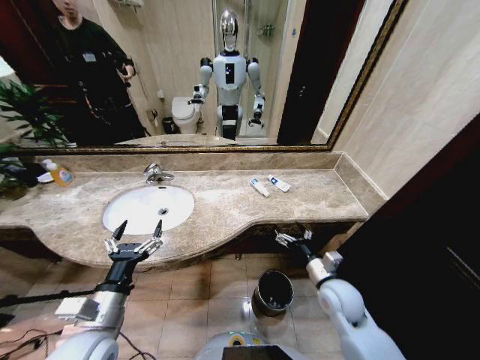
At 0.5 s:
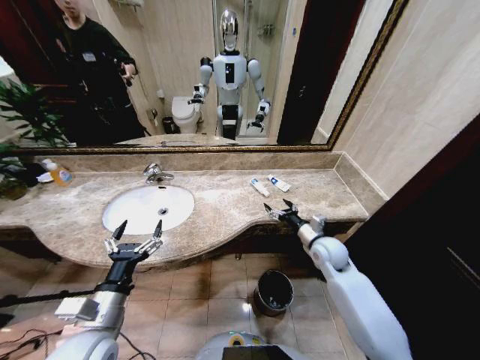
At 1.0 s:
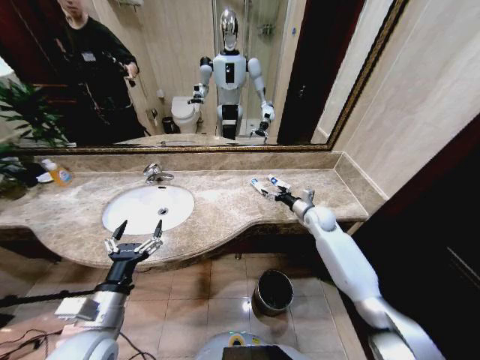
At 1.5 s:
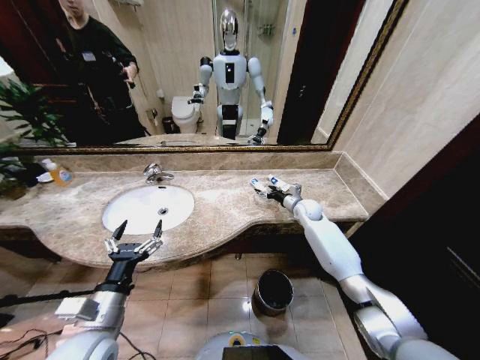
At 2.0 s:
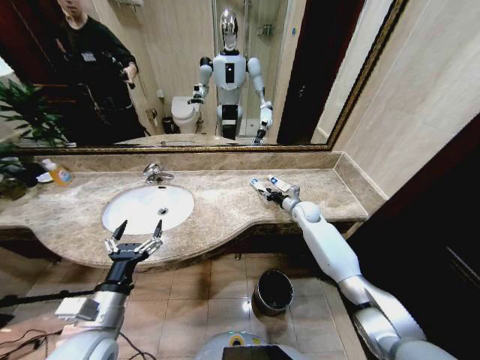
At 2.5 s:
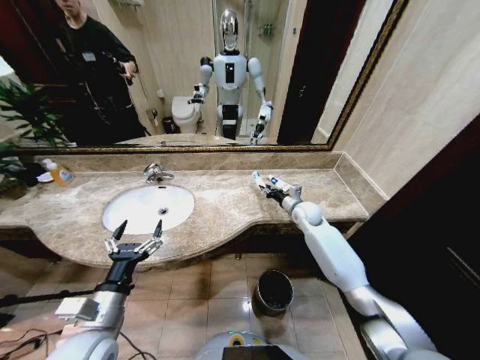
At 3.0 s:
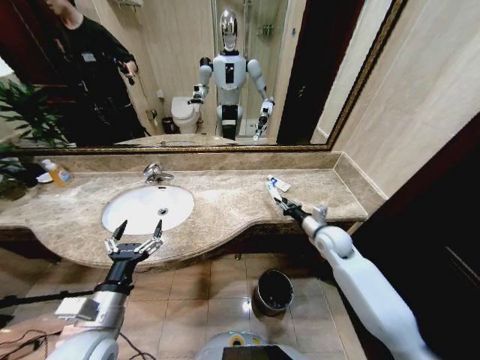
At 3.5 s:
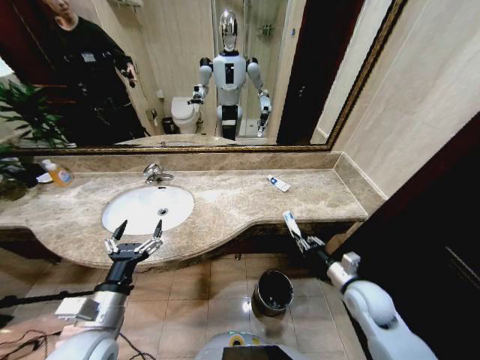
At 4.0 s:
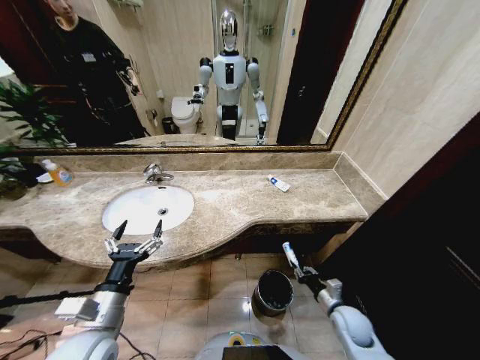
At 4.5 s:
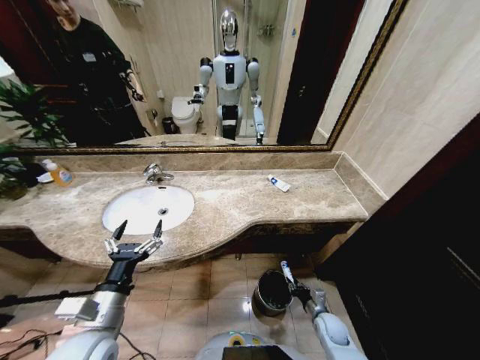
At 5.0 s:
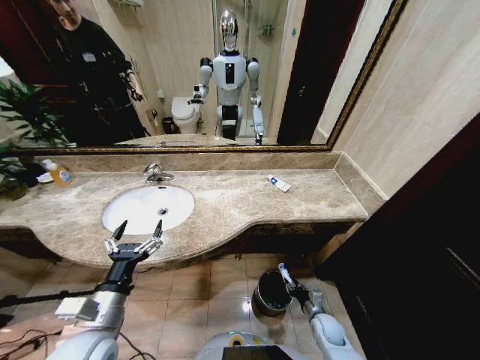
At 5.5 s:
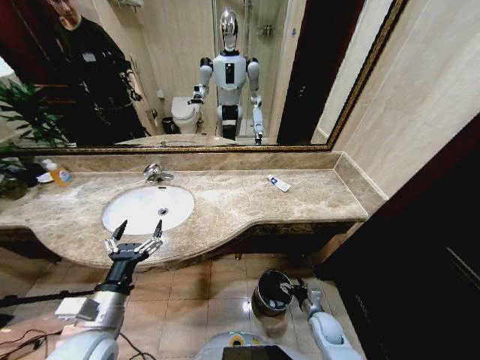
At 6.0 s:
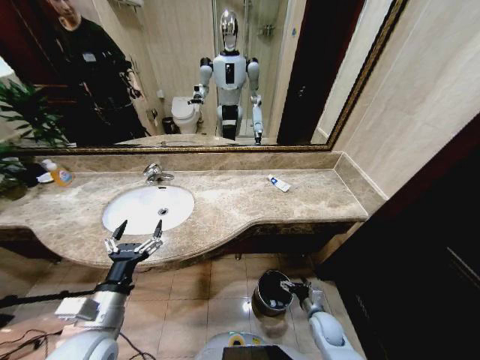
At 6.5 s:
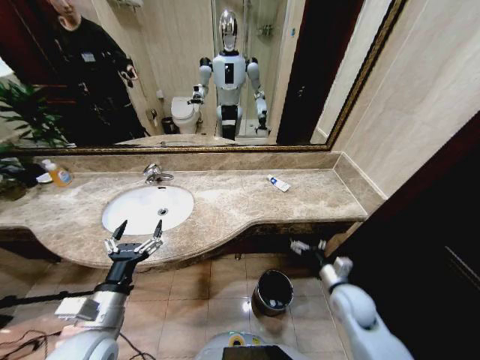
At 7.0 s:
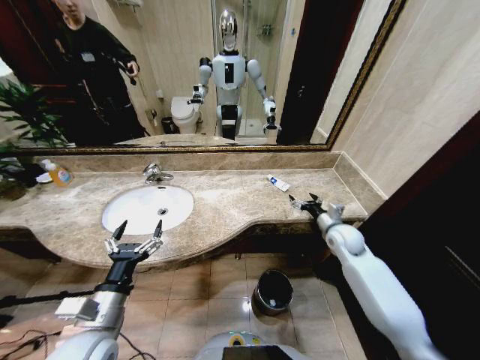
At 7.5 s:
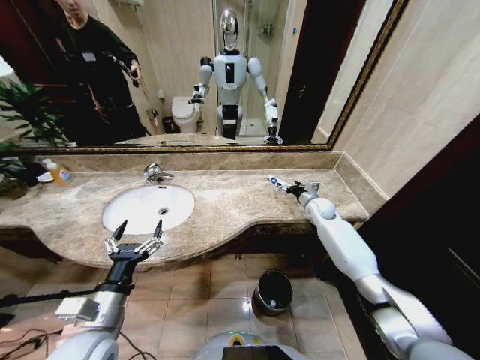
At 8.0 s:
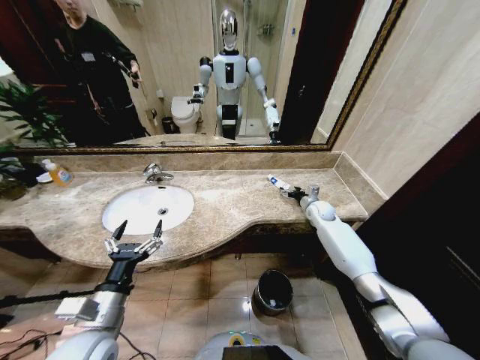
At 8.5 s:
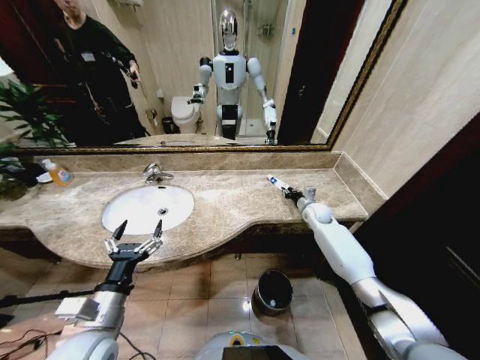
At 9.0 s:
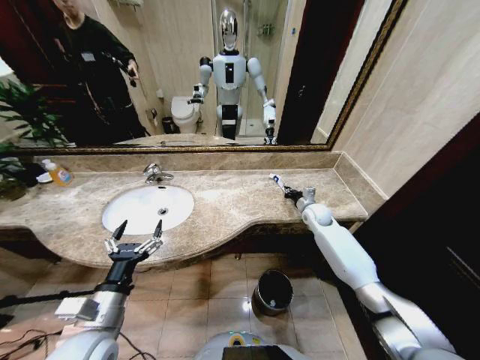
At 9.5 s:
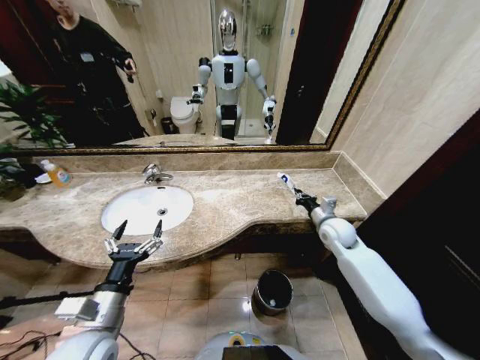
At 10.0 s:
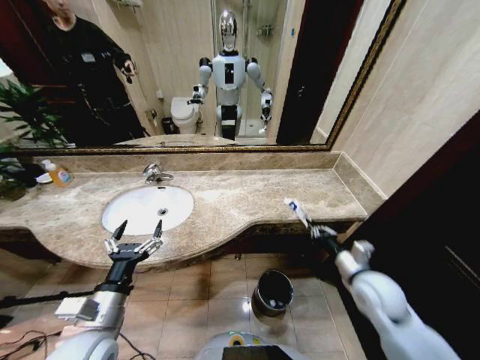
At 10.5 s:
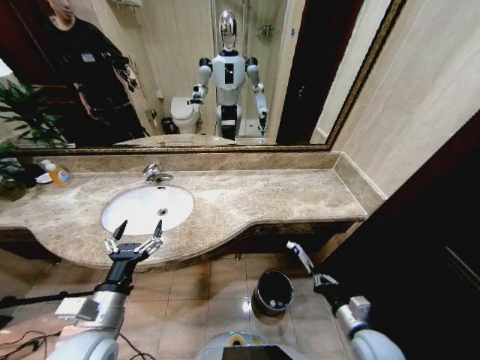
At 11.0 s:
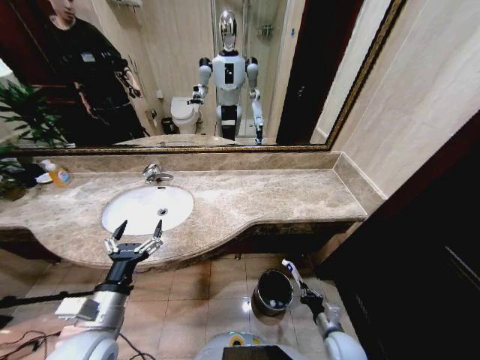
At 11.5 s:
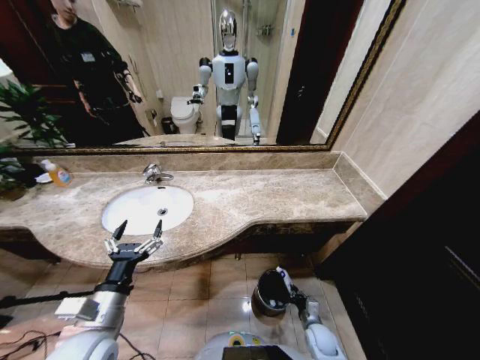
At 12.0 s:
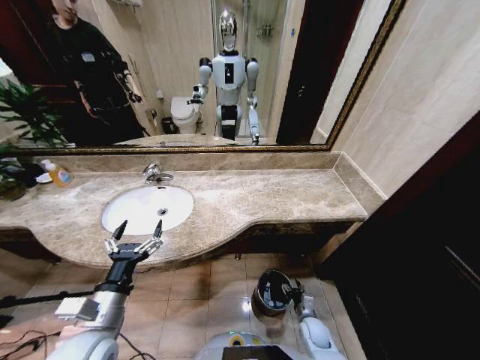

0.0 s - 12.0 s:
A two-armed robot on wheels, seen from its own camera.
Task of the whole recording: Pick up the trash from the sink and place it in the trash bin.
0.0 s - 2.0 s: The right gripper goes some 30 cm forward, and closes.
2.0 s - 4.0 s: The right gripper travels backward and downward by about 35 cm.
4.0 s - 6.0 s: The right gripper shifts roughly 10 cm downward, and opens up.
6.0 s - 8.0 s: The right gripper is displaced forward and upward by some 40 cm.
8.0 s - 10.0 s: The right gripper heads backward, covering about 30 cm, and closes its fingers.
10.0 s - 12.0 s: The right gripper moves downward, about 30 cm, and opens up.

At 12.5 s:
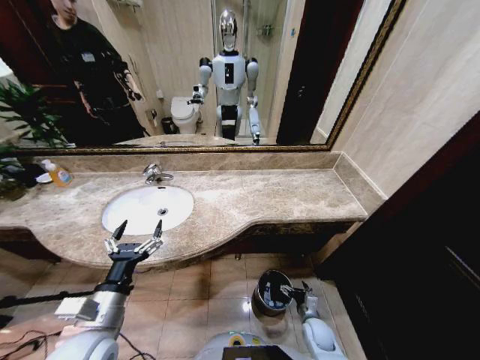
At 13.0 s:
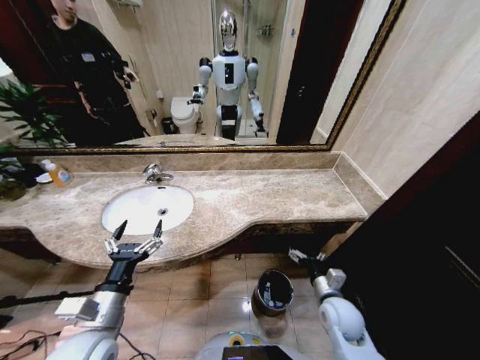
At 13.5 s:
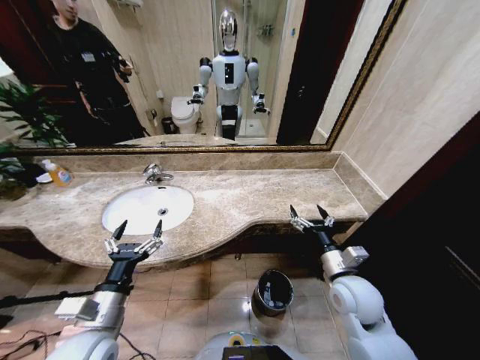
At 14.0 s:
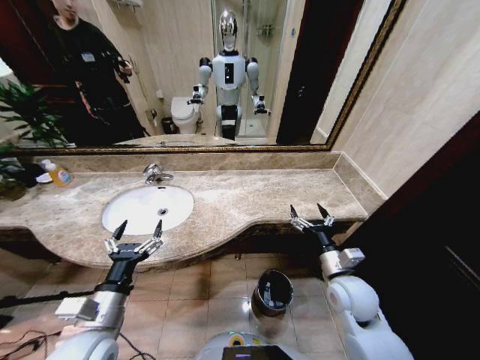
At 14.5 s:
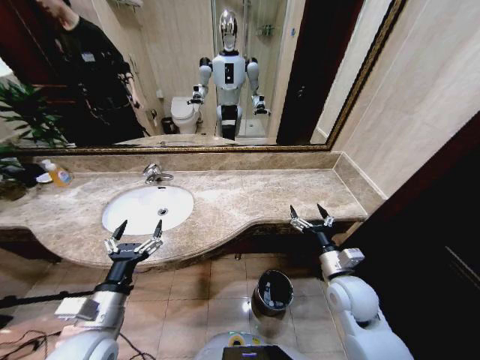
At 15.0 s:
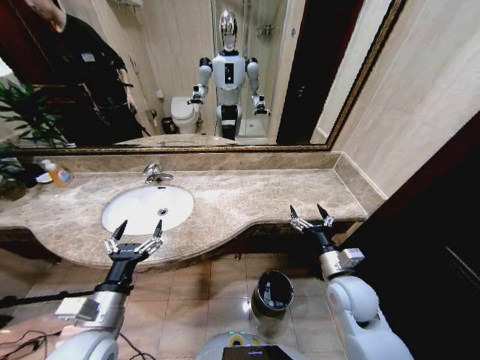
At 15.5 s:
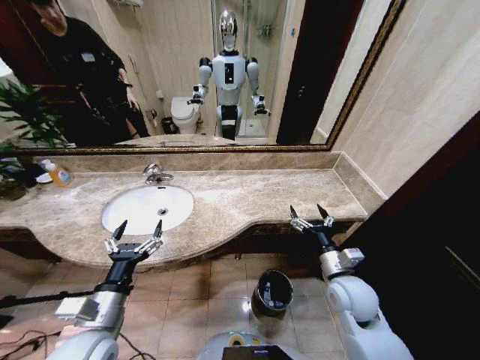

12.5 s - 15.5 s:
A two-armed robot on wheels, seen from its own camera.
Task of the whole recording: Pick up the trash from the sink and place it in the trash bin.
12.5 s - 14.0 s: The right gripper is displaced upward by about 30 cm.
14.0 s - 15.5 s: Both grippers stay about where they are.

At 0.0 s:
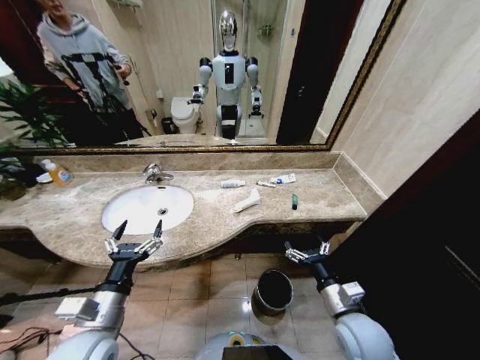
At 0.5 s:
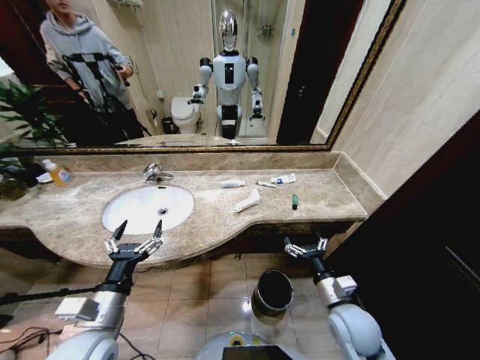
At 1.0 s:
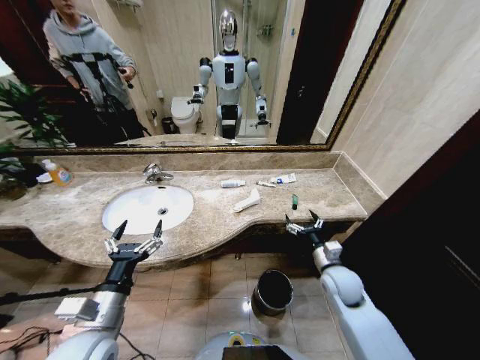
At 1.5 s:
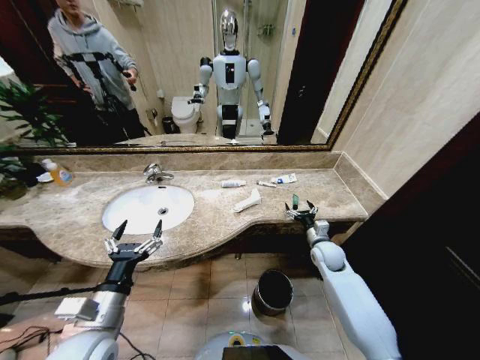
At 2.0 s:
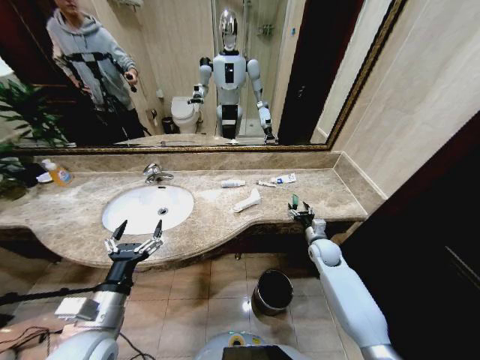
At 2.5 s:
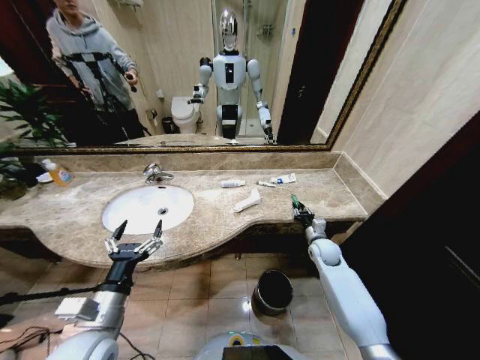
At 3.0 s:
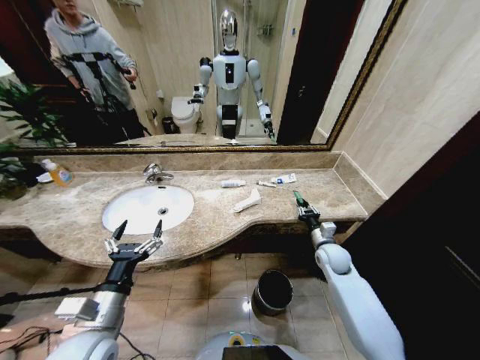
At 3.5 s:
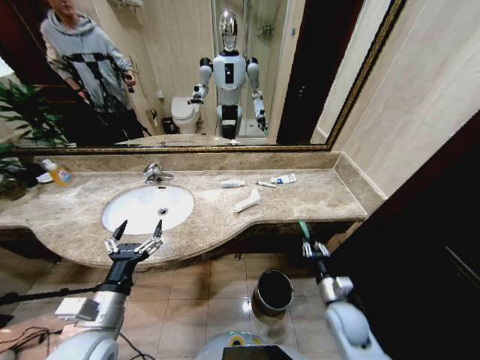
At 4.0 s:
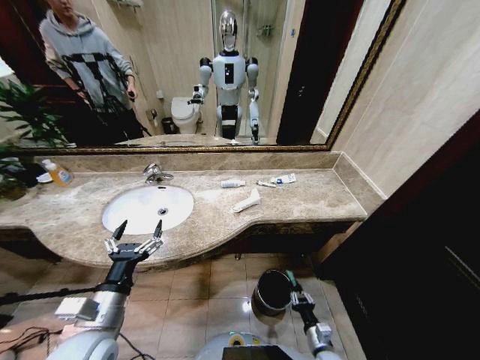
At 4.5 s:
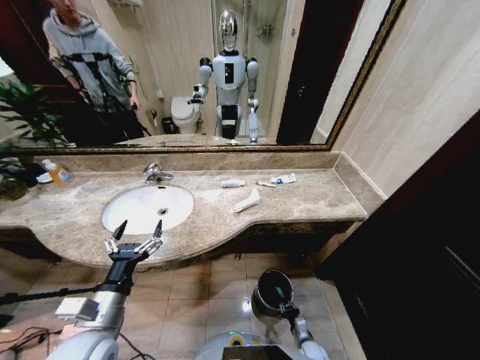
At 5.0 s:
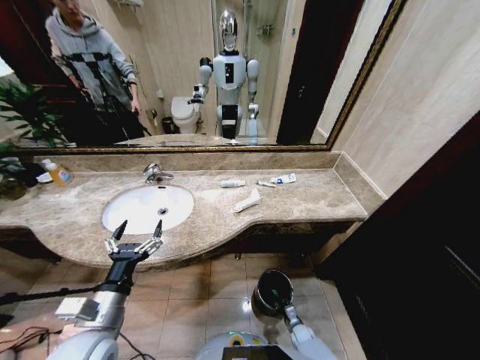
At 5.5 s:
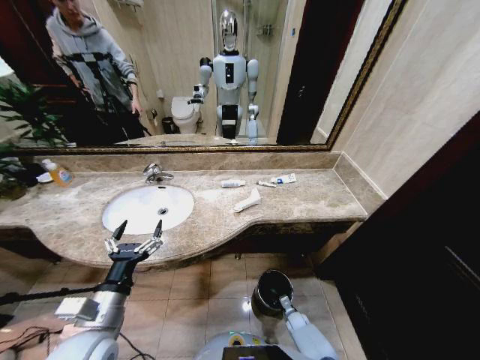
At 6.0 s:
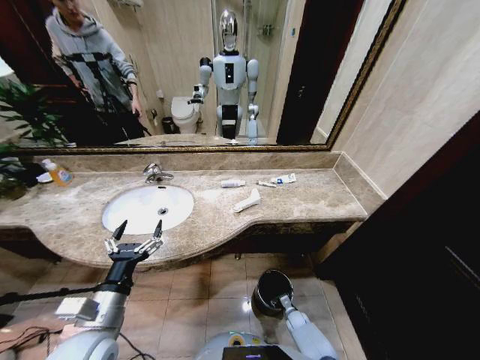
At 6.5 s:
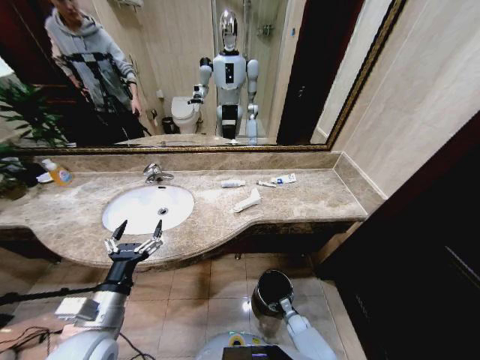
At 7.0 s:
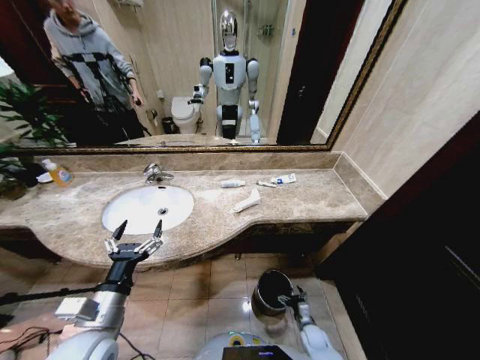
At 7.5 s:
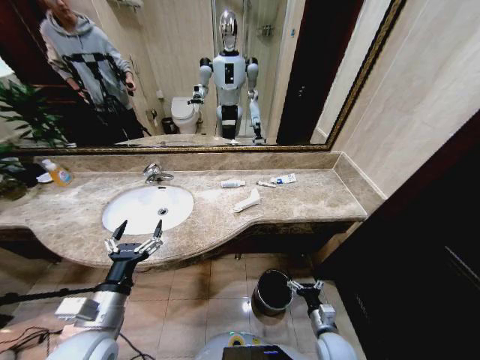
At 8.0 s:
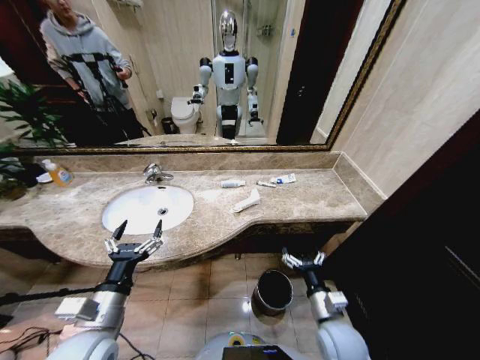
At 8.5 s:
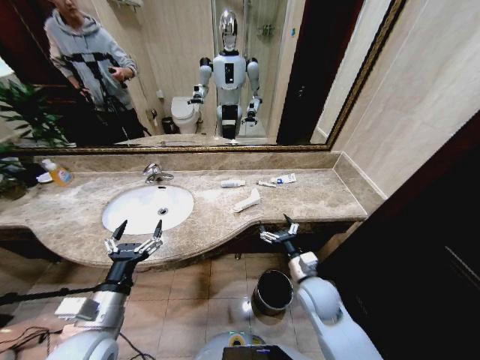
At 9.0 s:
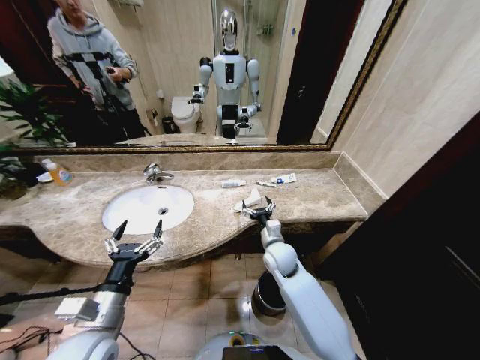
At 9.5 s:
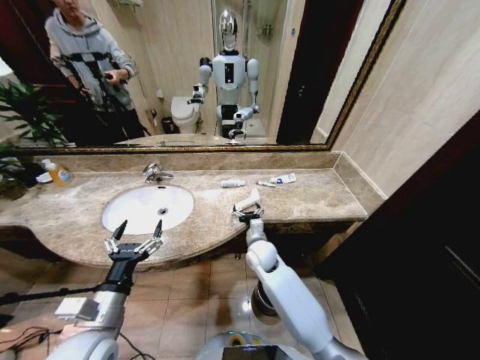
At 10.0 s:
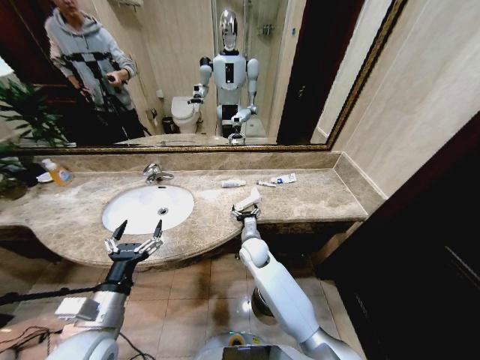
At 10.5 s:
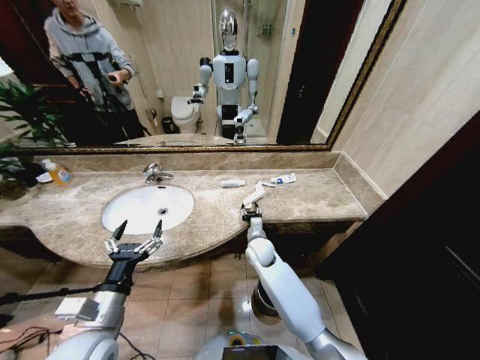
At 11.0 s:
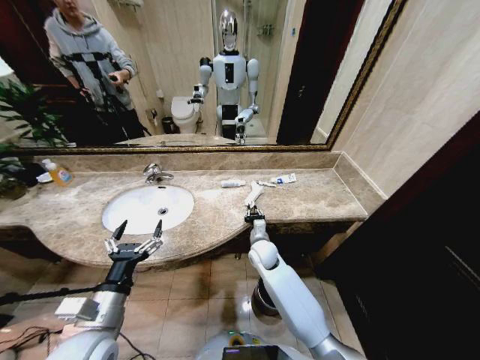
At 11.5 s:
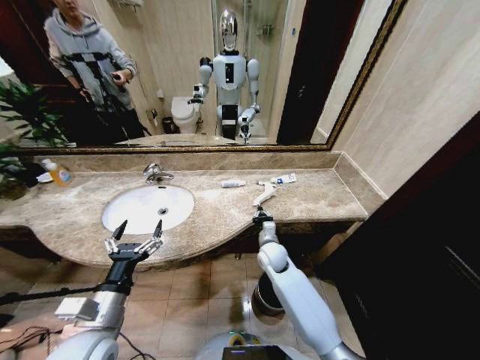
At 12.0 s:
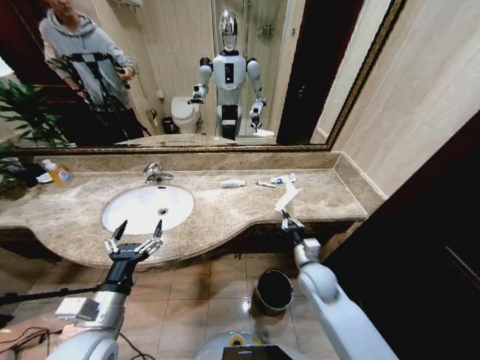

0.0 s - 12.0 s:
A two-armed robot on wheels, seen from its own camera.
Task of the whole recording: Pick up the trash from the sink and place it in the trash bin.
2.0 s - 4.0 s: The right gripper goes roughly 35 cm backward and downward, and closes up.
4.0 s - 6.0 s: The right gripper heads downward and forward, covering roughly 20 cm, and opens.
6.0 s - 8.0 s: The right gripper heads upward, covering some 35 cm, and opens its fingers.
8.0 s - 10.0 s: The right gripper goes about 30 cm forward and to the left.
10.0 s - 12.0 s: The right gripper shifts approximately 20 cm to the right and backward, and closes up.
